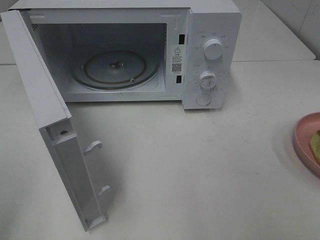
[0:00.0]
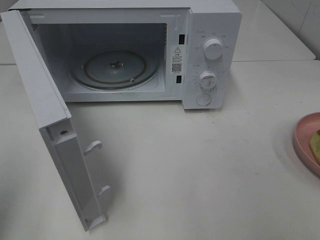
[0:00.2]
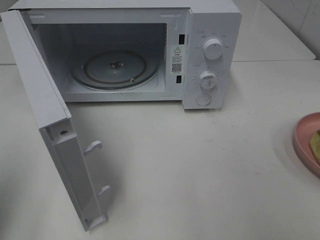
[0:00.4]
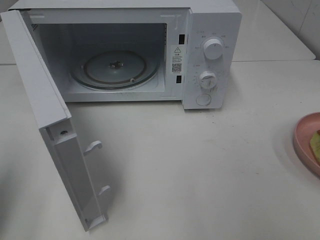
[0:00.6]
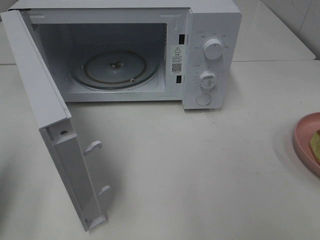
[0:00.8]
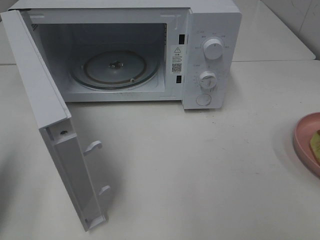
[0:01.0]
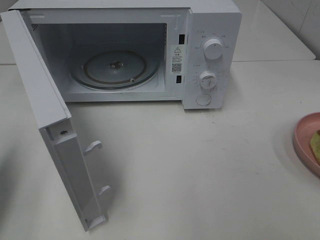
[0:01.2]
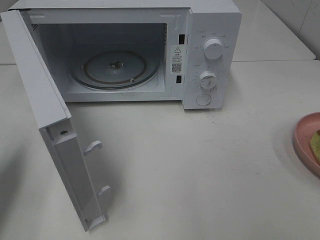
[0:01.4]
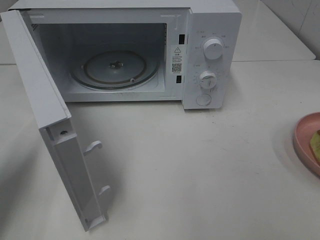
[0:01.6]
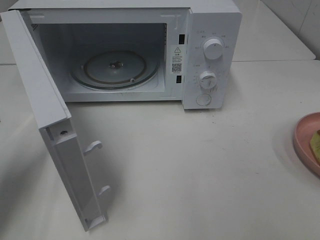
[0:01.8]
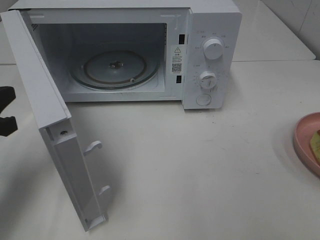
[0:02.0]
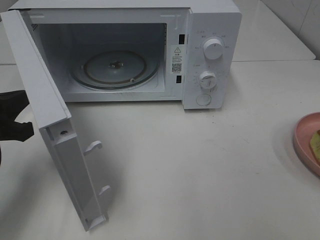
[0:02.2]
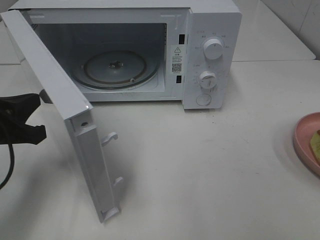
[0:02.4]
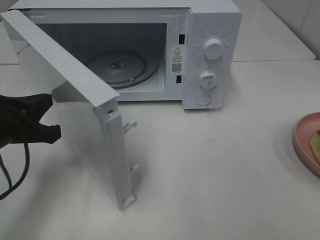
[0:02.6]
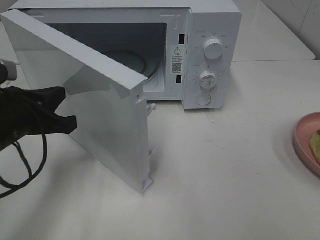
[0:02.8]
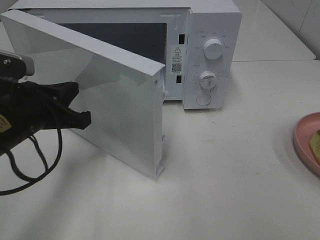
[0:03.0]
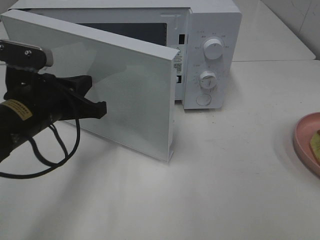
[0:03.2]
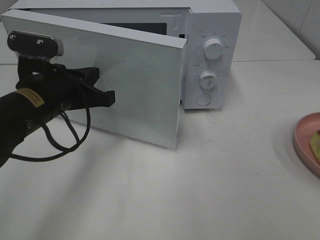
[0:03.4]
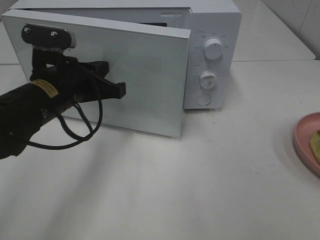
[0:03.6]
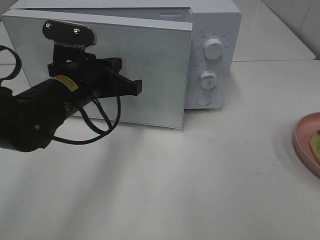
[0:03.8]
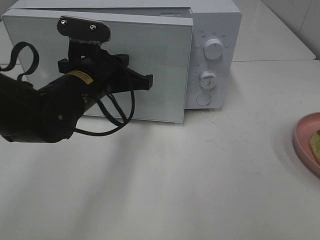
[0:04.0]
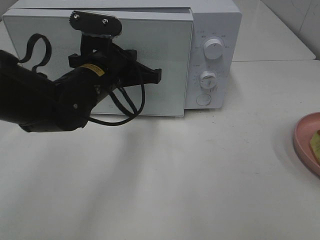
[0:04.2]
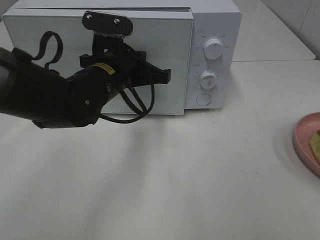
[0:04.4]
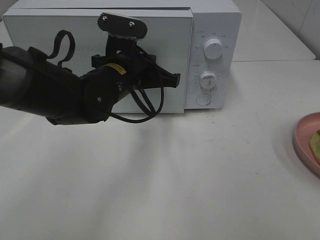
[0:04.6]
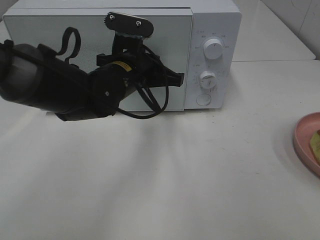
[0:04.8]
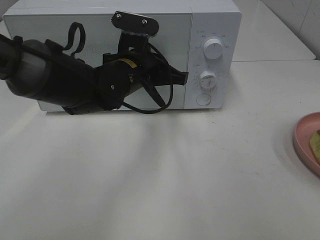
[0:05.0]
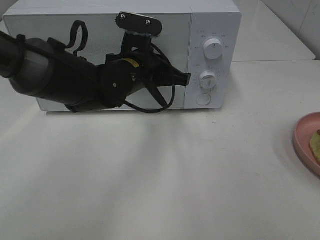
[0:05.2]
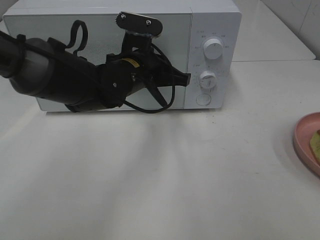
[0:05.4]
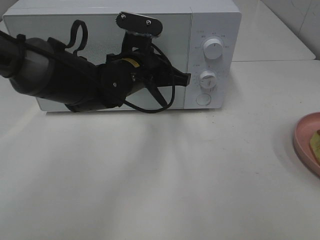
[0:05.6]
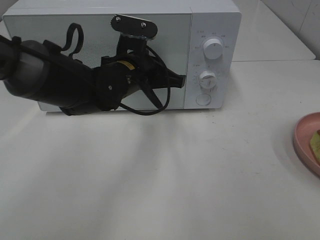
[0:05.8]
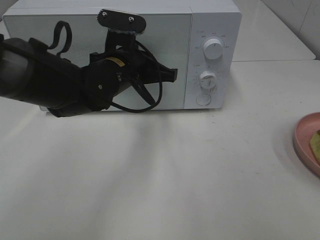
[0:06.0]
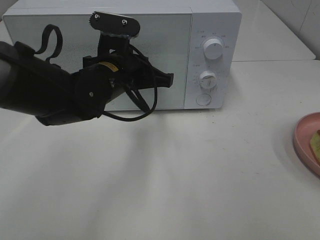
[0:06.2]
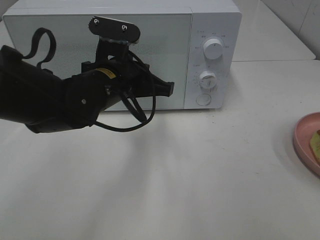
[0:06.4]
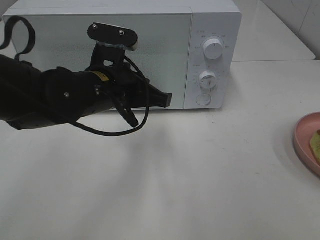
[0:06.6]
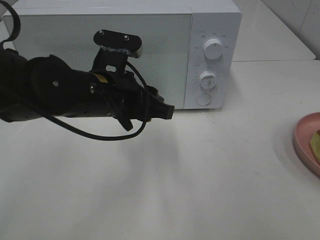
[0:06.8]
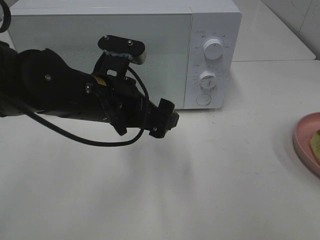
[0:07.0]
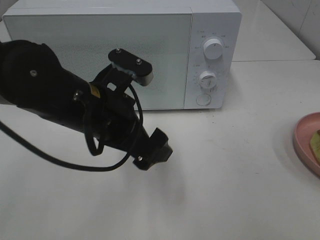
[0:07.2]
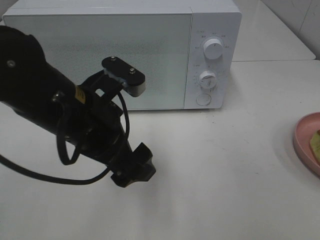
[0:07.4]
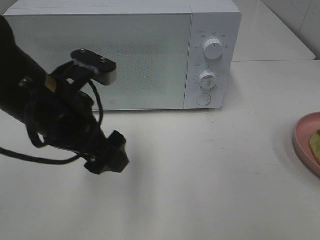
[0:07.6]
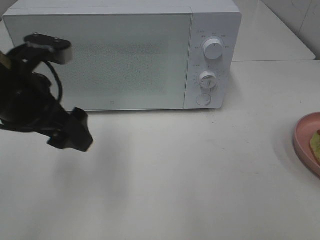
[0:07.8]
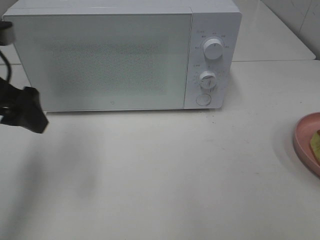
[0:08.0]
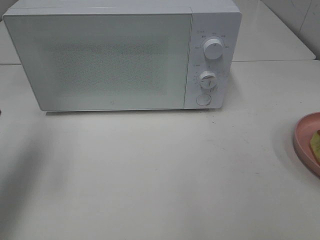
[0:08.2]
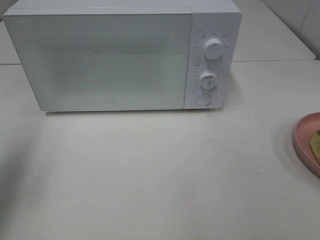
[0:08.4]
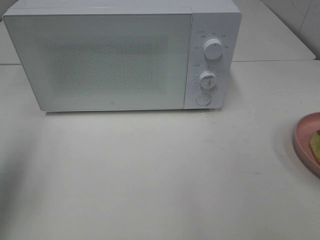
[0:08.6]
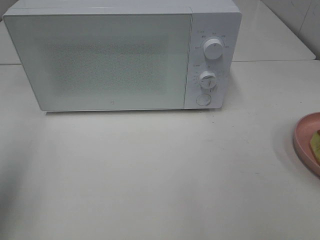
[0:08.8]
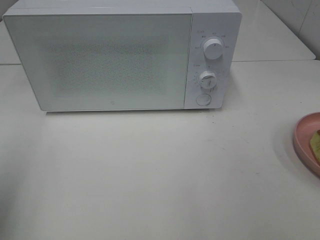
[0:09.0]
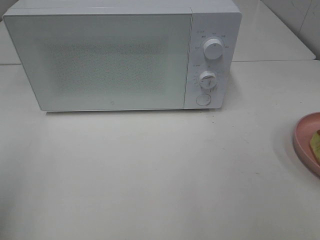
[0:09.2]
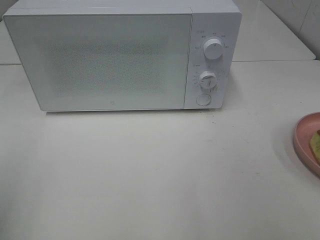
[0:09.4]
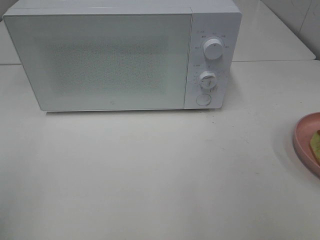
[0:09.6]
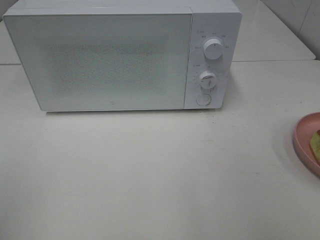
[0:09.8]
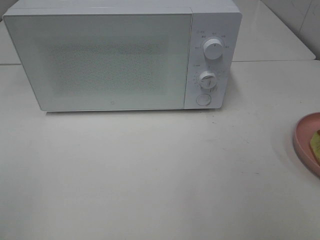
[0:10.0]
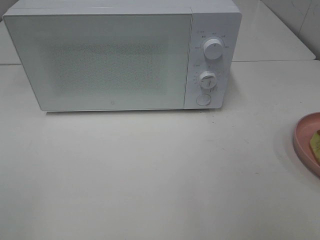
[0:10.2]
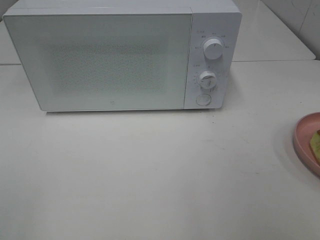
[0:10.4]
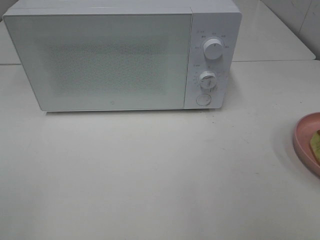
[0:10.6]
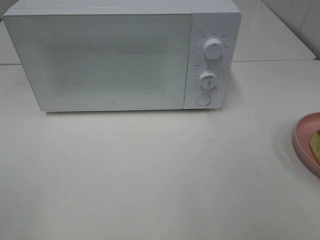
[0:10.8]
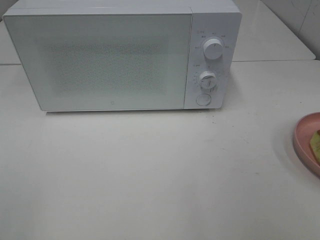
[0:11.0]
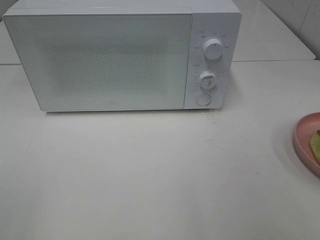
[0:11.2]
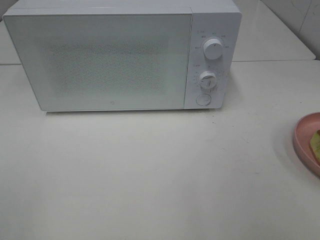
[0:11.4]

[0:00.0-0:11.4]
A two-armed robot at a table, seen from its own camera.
Task of the whole recording: Heat Sandwich.
Step, 0:00.0 to 0:05.4: Left hand: close the microwave door.
0:00.0 to 0:01.4: The left gripper travels forward and downward by about 15 cm, and closes its fingers.
0:01.4 to 0:02.8: The left gripper heads to the right and downward, covering roughly 15 cm.
0:02.8 to 0:04.2: The left gripper goes about 15 cm to the right and forward.
0:04.2 to 0:05.6: The left gripper changes place by approximately 5 cm.
0:05.6 to 0:07.2: The left gripper goes approximately 10 cm backward, and opens.
0:07.2 to 0:08.6: The left gripper heads to the left and upward, covering roughly 30 cm.
0:08.6 to 0:10.0: The left gripper is displaced backward by about 20 cm.
